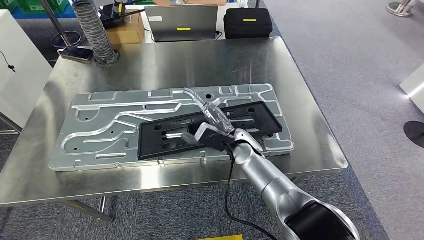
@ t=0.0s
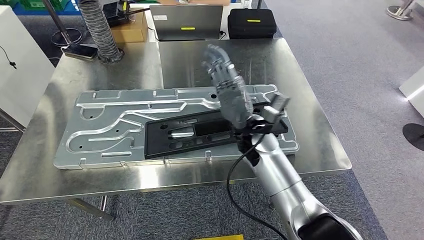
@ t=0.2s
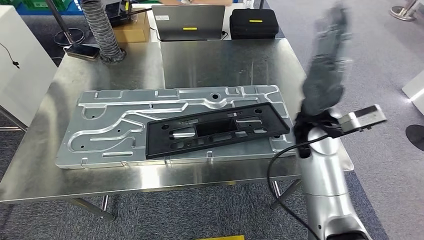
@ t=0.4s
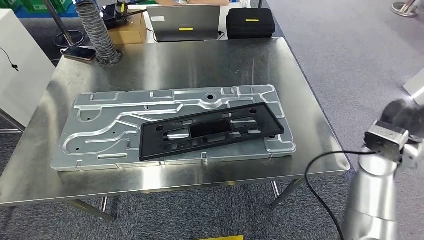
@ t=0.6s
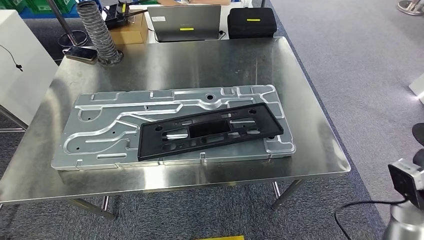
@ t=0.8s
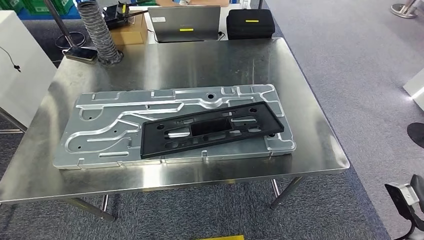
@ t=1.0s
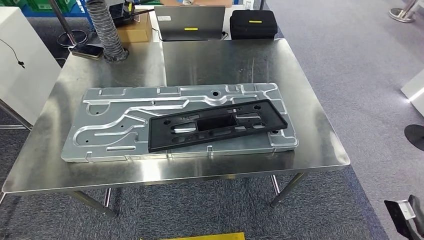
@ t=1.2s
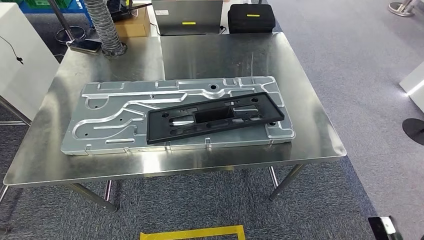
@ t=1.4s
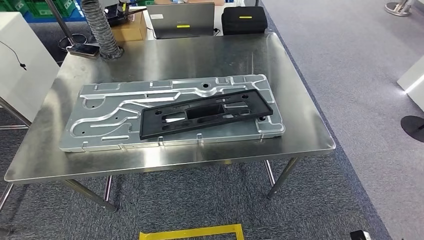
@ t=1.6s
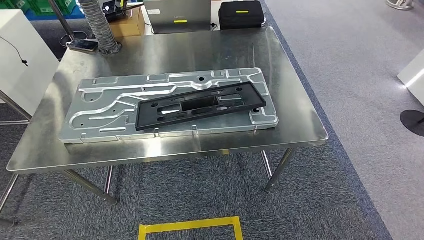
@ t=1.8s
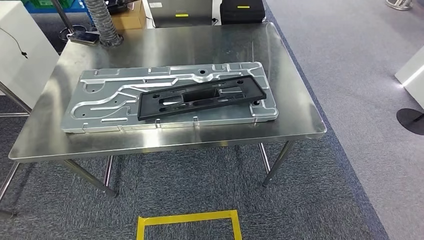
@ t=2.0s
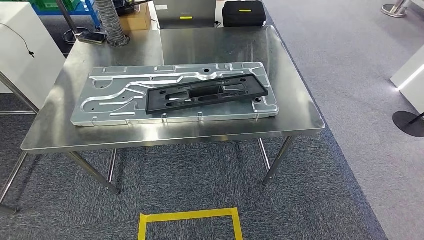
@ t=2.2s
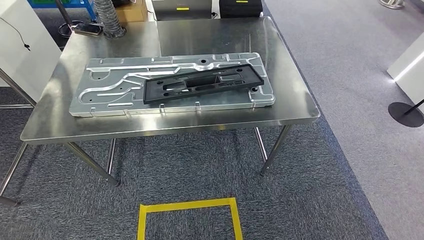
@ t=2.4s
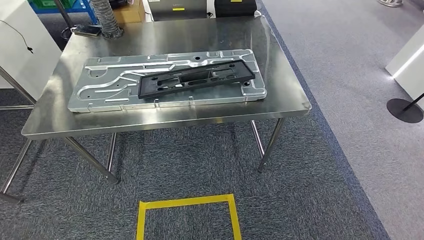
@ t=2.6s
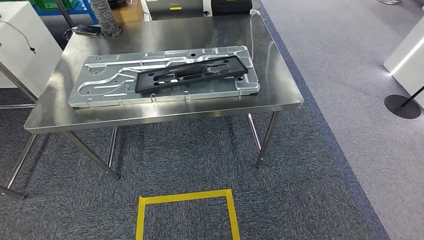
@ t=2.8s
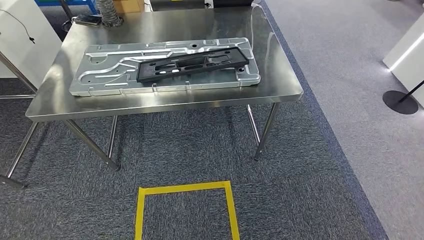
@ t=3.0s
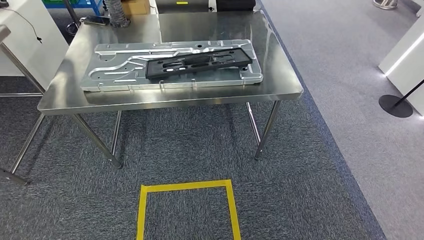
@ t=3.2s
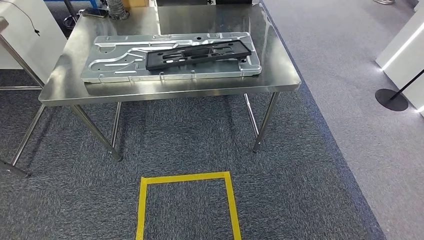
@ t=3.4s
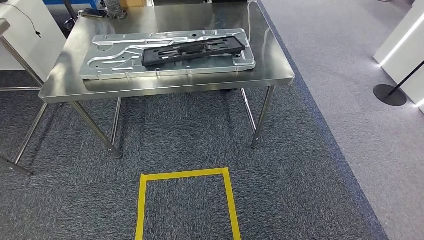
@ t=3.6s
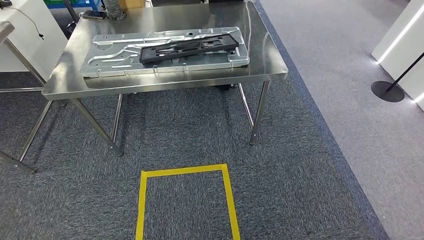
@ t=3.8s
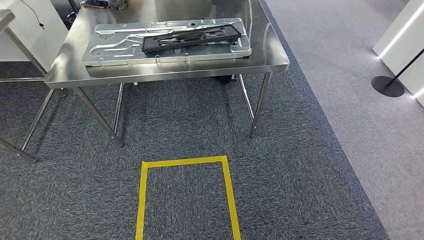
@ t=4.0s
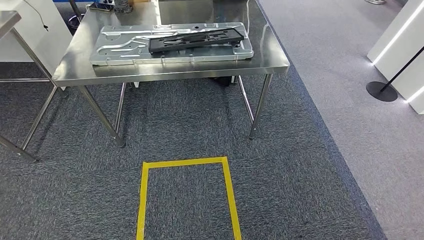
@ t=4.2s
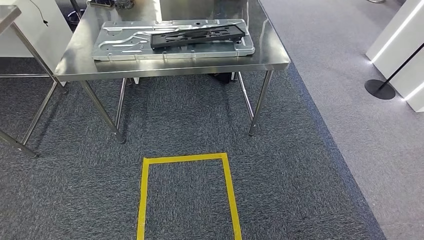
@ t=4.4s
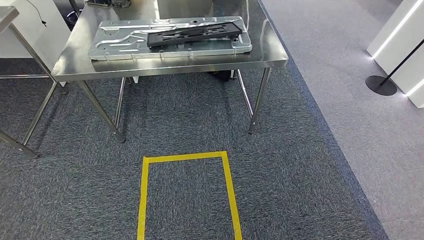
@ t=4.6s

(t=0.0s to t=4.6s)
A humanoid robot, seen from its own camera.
Step, t=1.0s - t=4.6s: Move to the initial position of the shelf.
